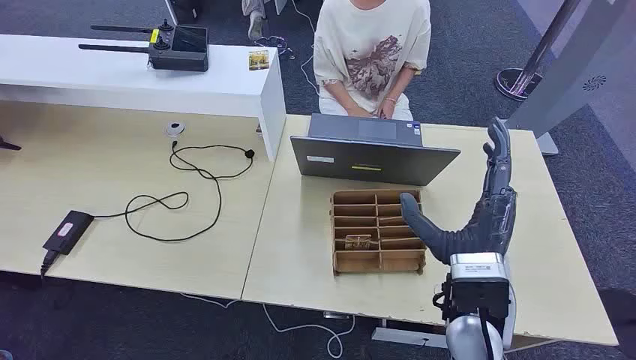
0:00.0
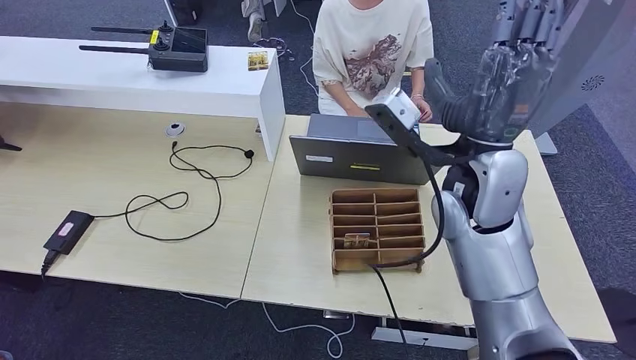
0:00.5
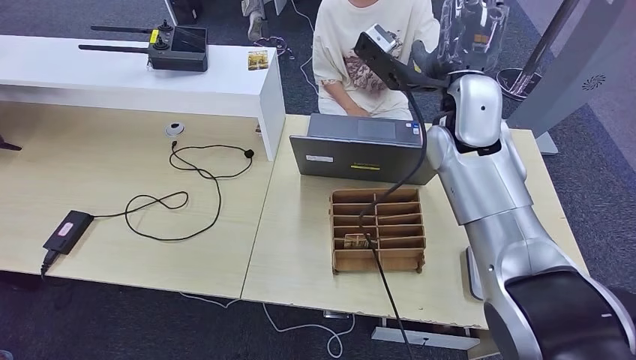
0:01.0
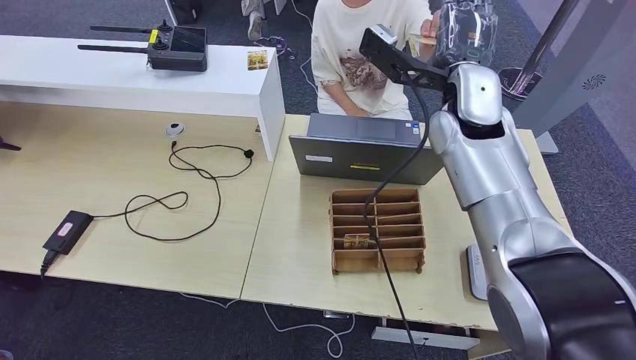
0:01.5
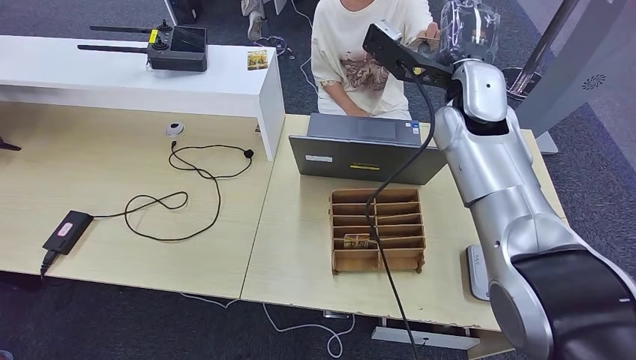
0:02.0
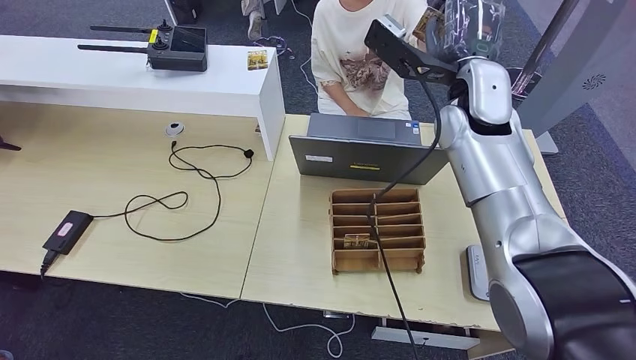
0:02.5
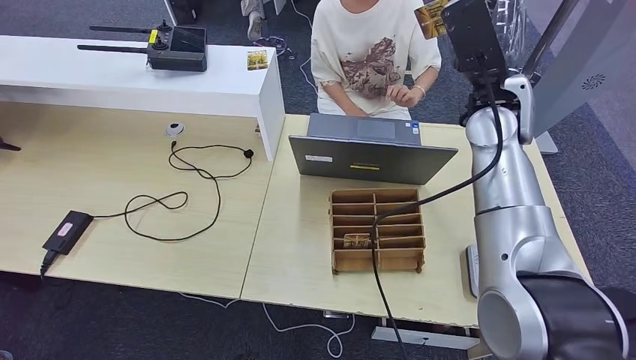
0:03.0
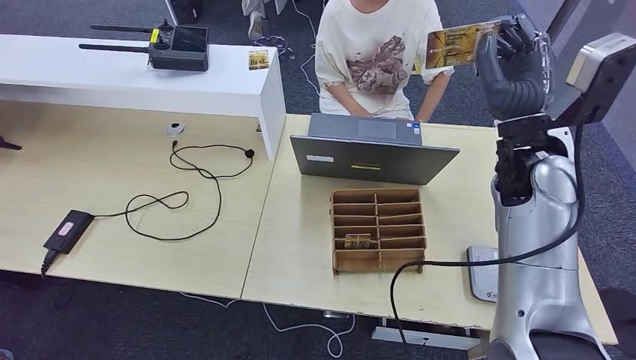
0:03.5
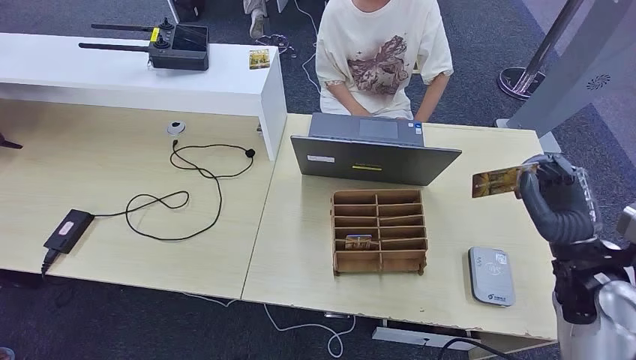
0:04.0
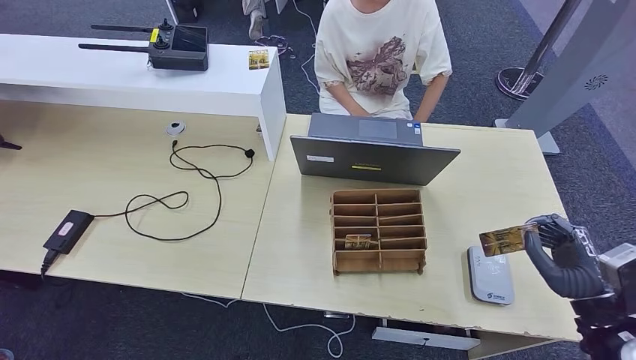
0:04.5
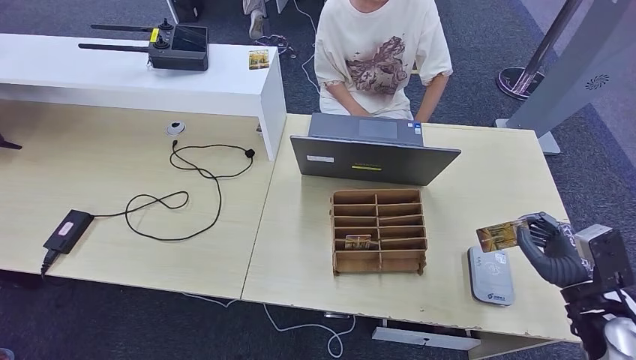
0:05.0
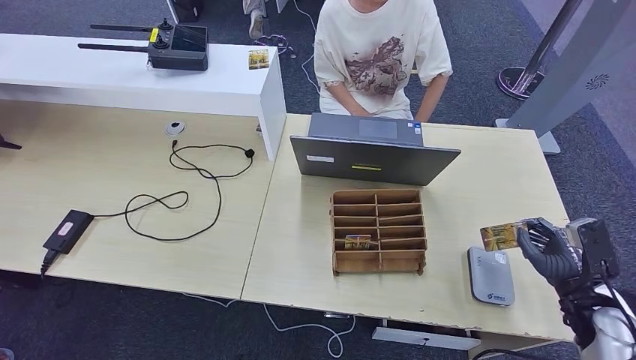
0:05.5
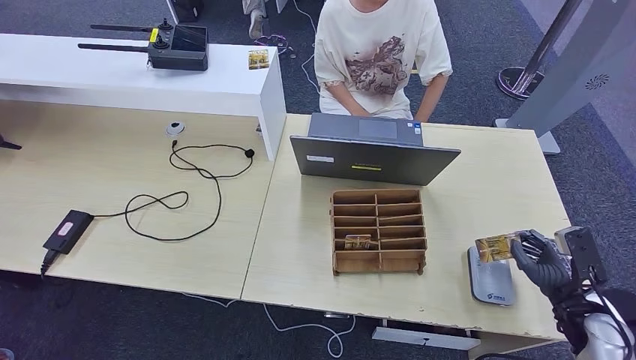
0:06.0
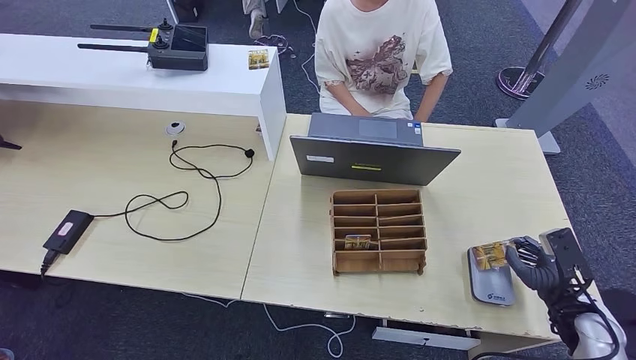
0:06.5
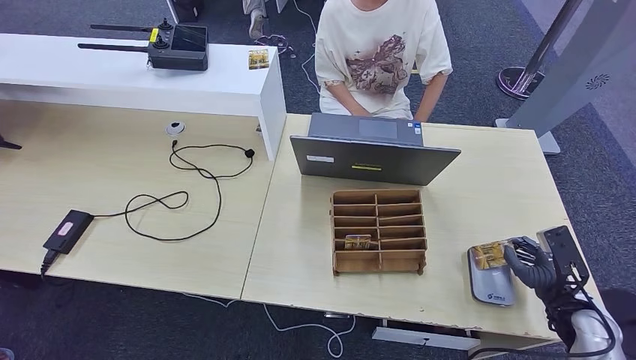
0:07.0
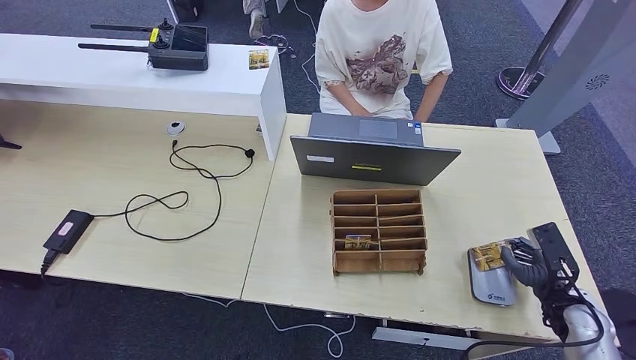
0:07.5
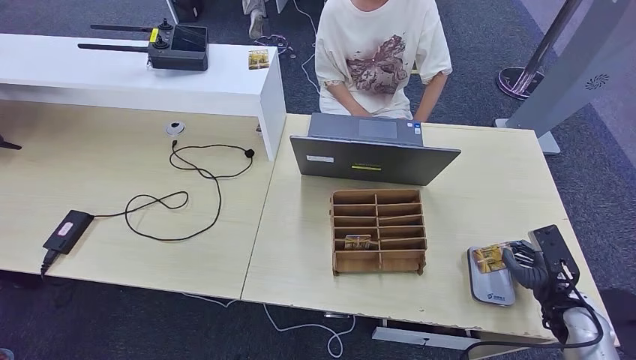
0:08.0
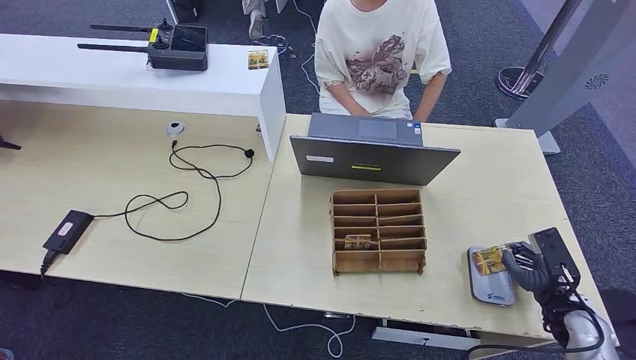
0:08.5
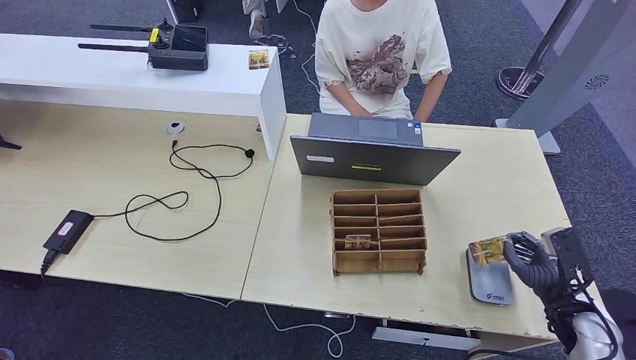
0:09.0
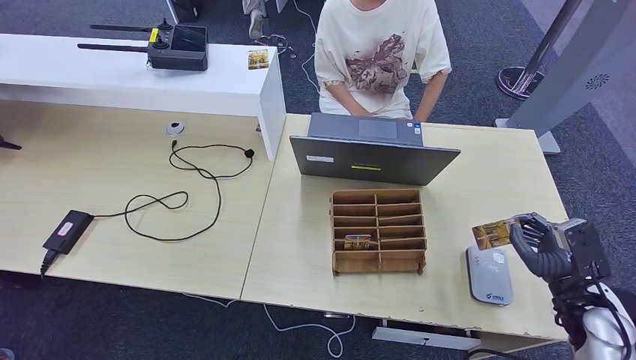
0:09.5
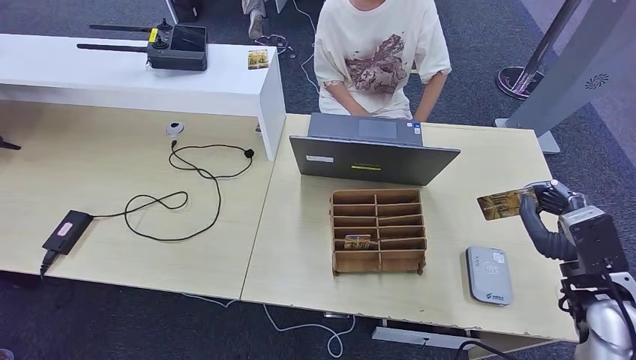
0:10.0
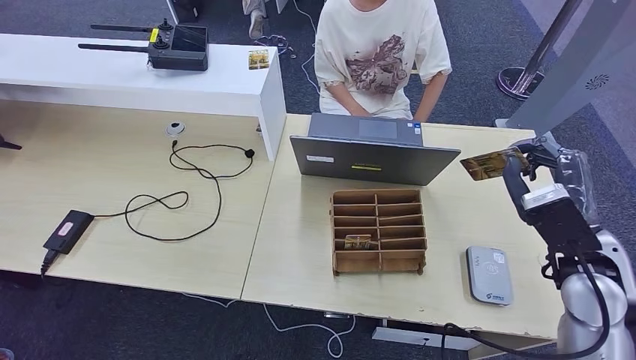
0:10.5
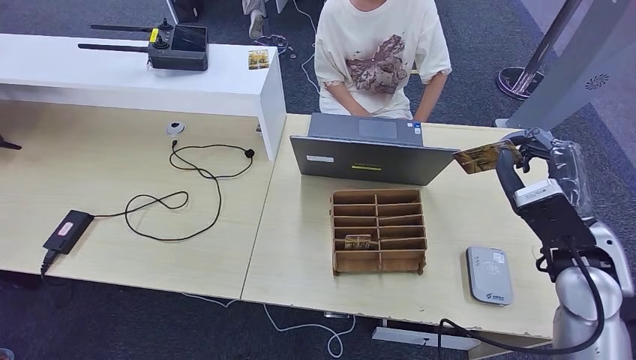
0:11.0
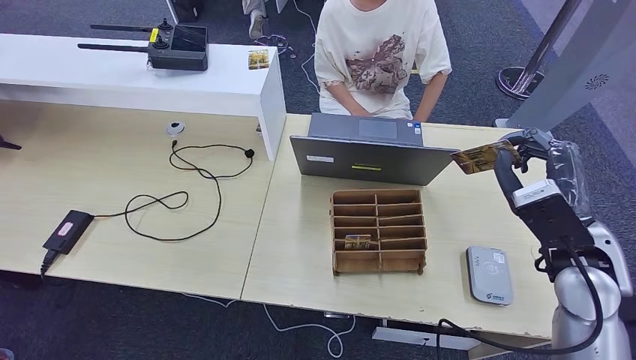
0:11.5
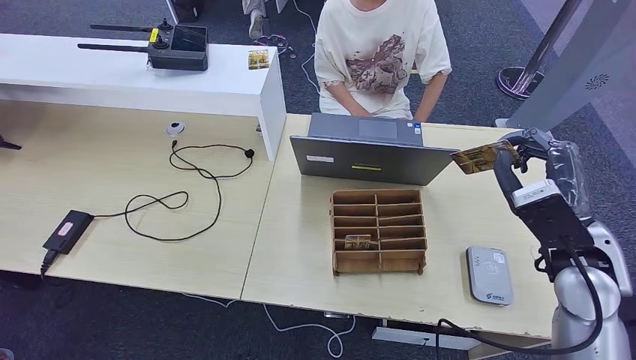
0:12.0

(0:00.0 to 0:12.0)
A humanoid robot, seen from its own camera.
Step, 0:00.0 - 0:04.0: Take the ID card from the person's hand.
Step, 0:04.5 - 0:10.0: Place the ID card on the card reader.
0:04.0 - 0:06.0: The right hand heads downward, to the right and backward, covering roughly 15 cm.
0:06.0 - 0:08.0: The hands make only small movements.
0:08.0 - 0:10.0: The right hand is displaced upward by approximately 10 cm.
0:10.0 - 0:12.0: The right hand moves upward and to the left, approximately 10 cm.

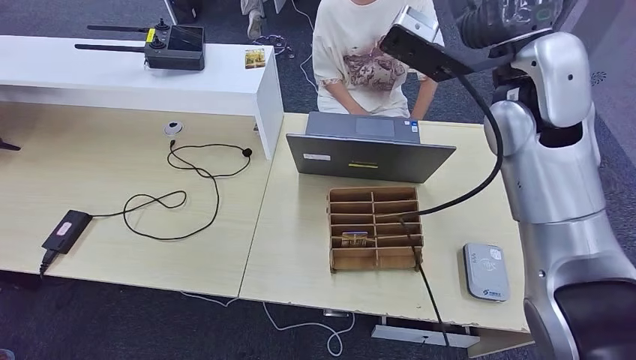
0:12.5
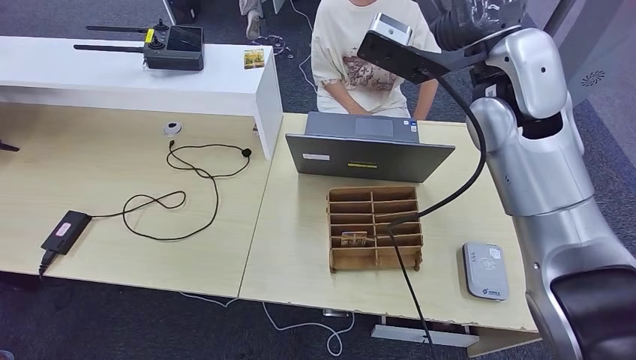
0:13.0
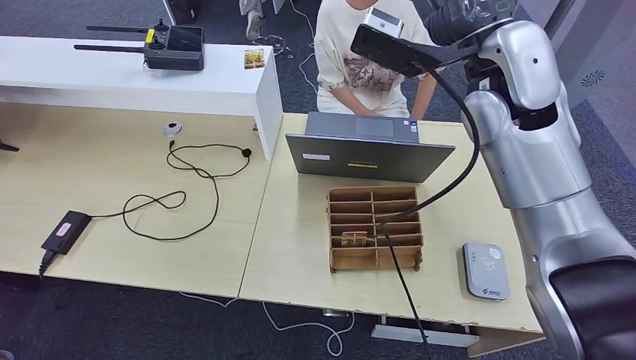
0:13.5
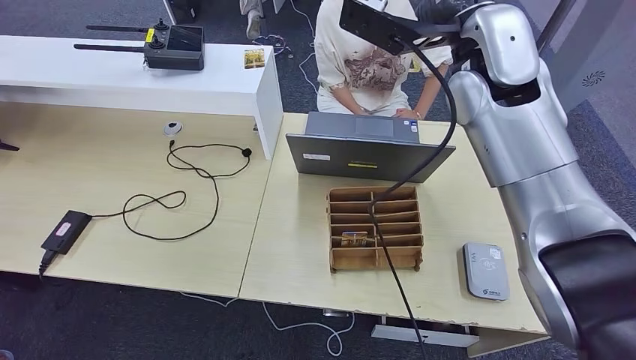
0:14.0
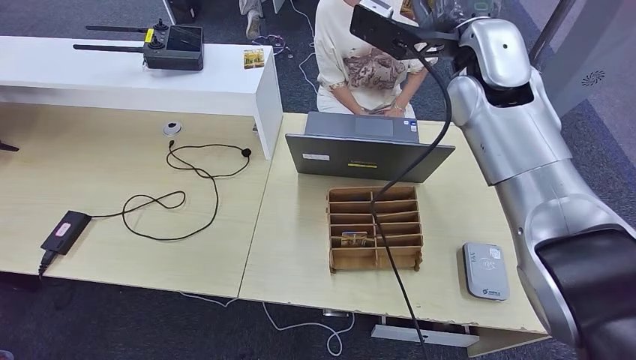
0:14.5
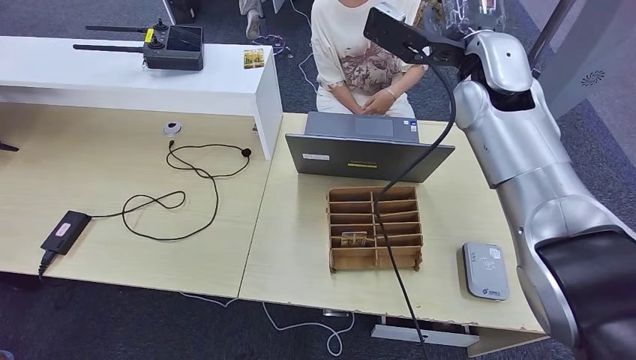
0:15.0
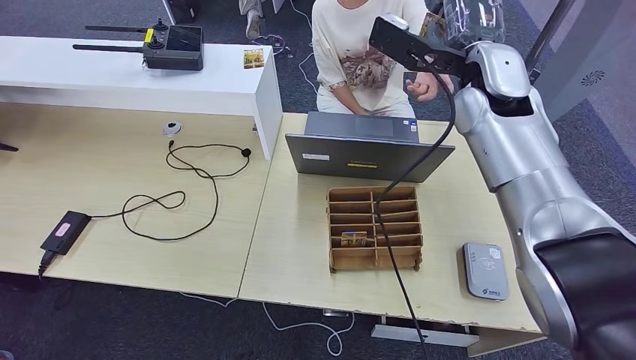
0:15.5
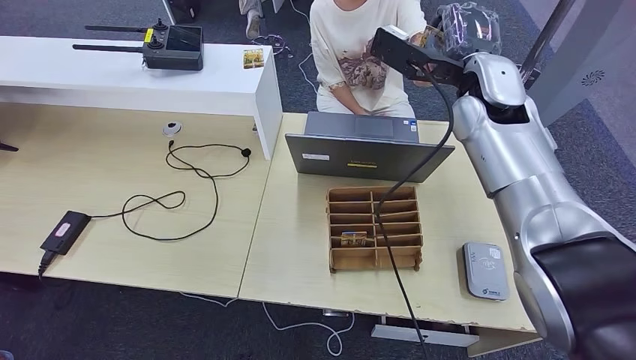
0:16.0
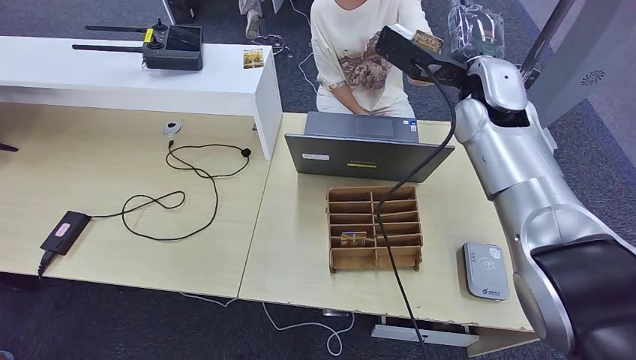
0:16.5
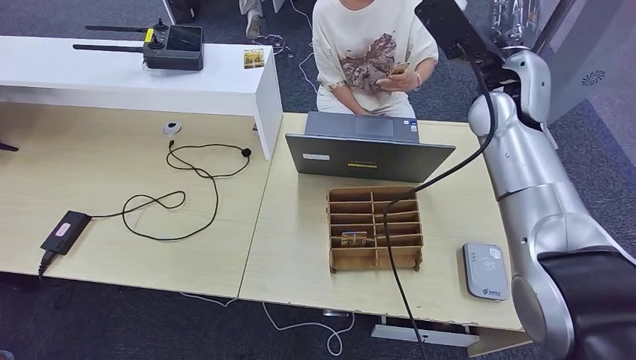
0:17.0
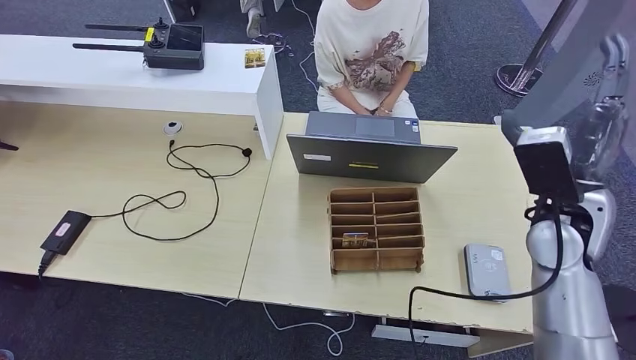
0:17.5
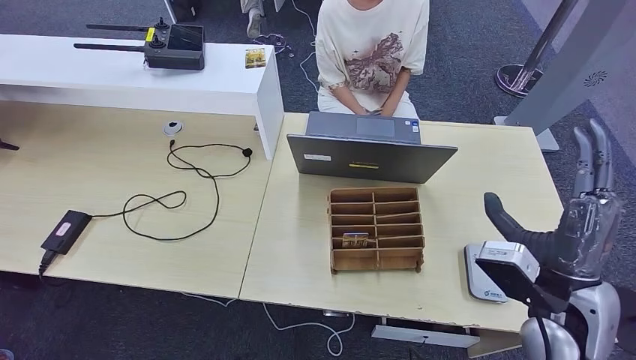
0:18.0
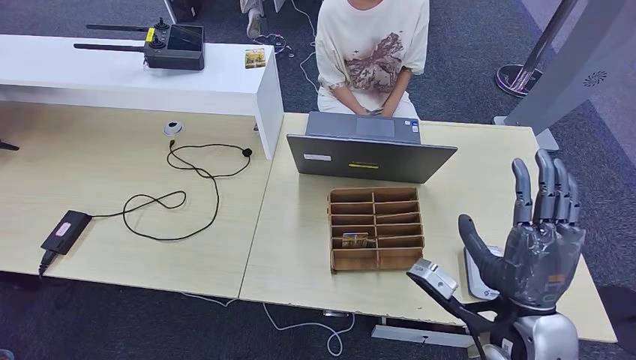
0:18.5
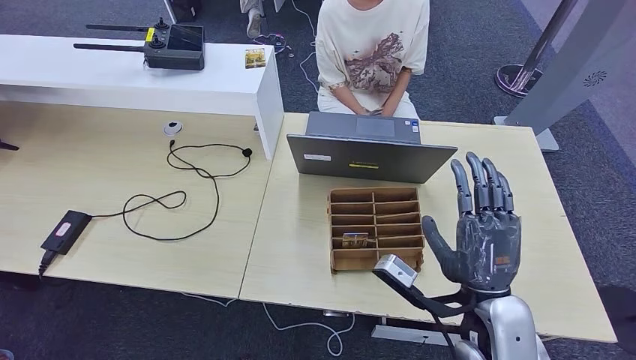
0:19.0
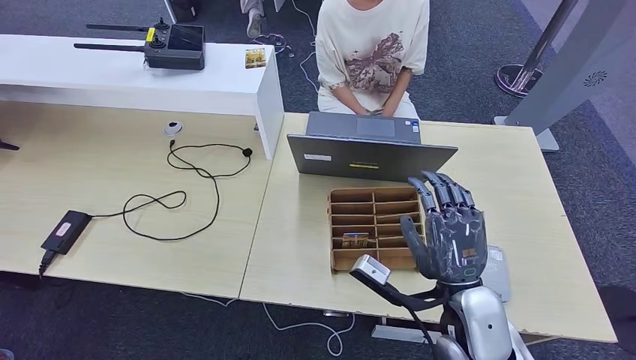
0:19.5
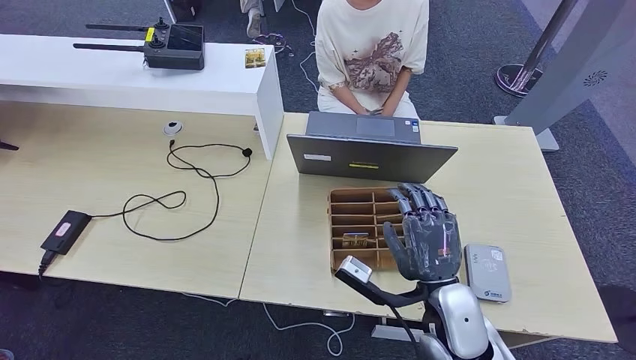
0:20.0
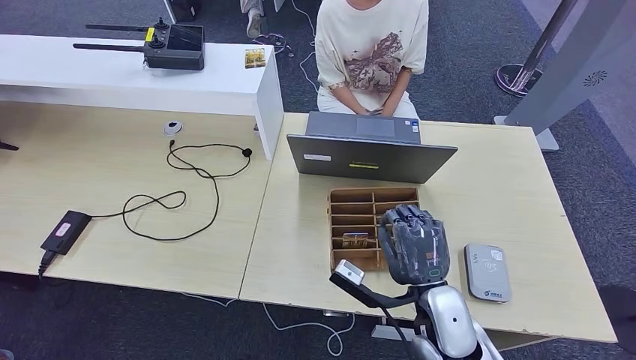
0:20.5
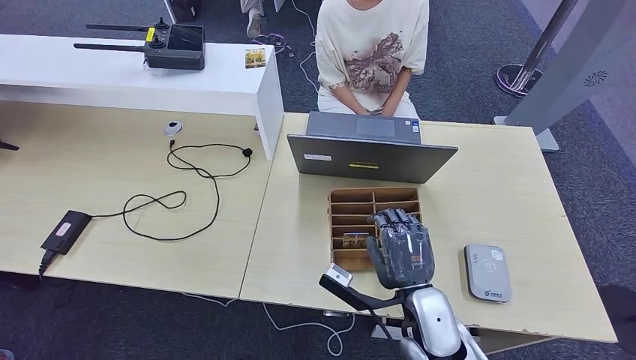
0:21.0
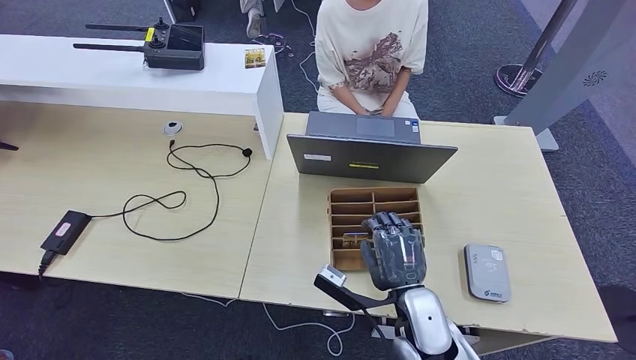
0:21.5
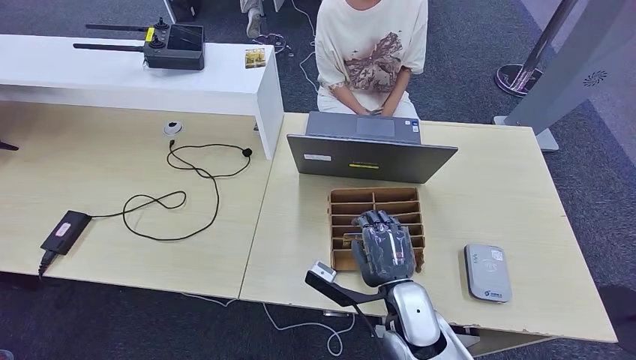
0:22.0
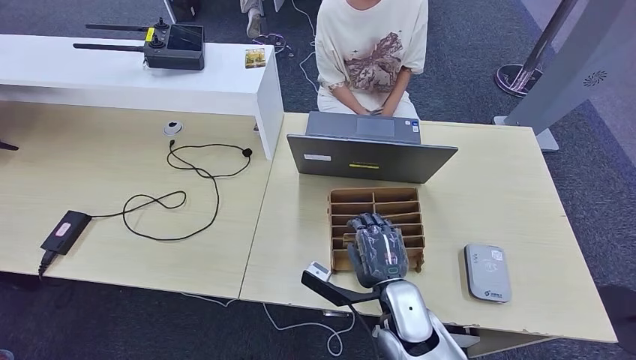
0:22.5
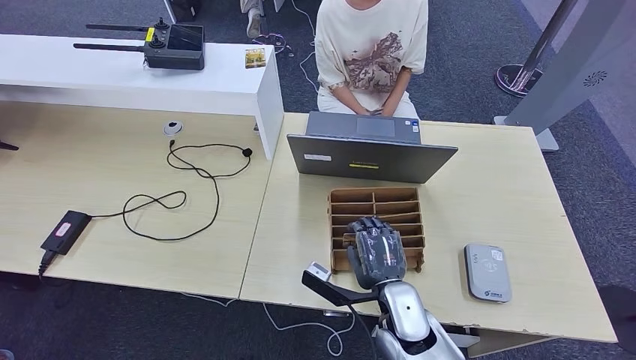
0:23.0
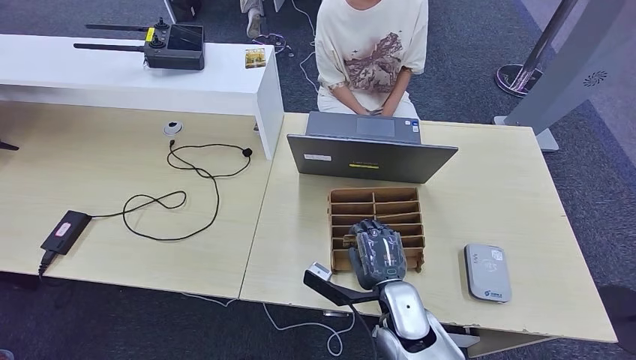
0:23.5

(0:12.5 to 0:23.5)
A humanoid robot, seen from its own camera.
Step, 0:12.5 - 0:18.0: Hand the ID card to the person.
0:14.5 - 0:16.0: The right hand is displaced downward by roughly 5 cm.
0:16.0 - 0:18.0: The right hand travels backward and downward by roughly 30 cm.
0:18.0 - 0:20.0: The right hand heads to the left and downward, covering roughly 15 cm.
0:20.0 - 0:21.5: The right hand ends up some 5 cm from where it was.
0:21.5 - 0:23.5: The hands make only small movements.
